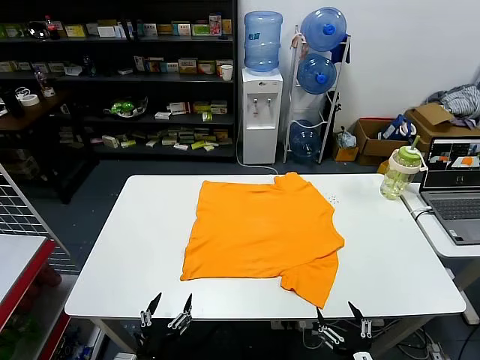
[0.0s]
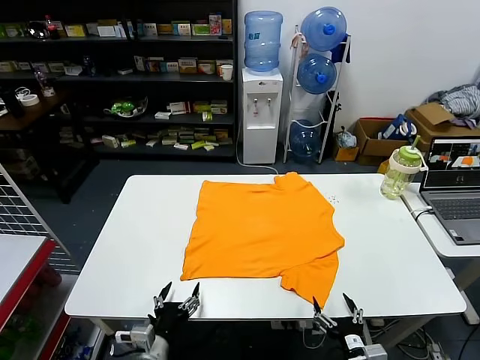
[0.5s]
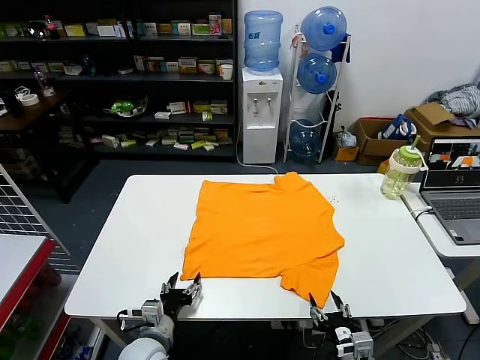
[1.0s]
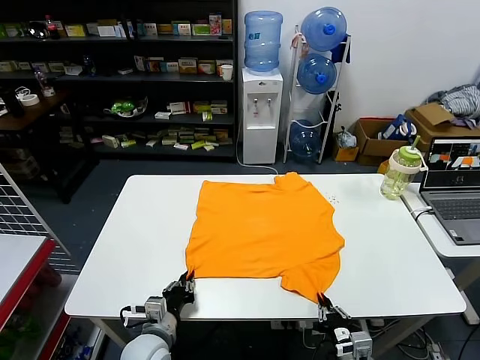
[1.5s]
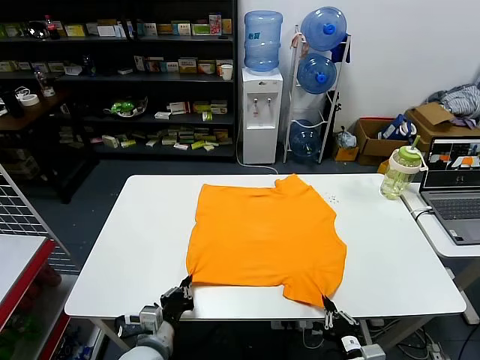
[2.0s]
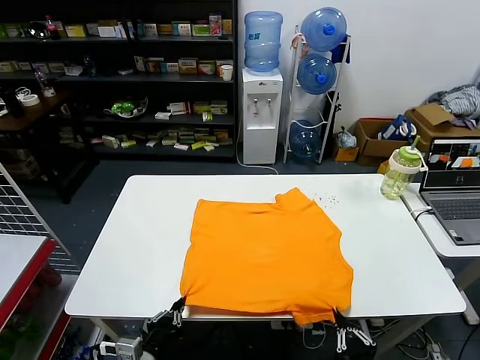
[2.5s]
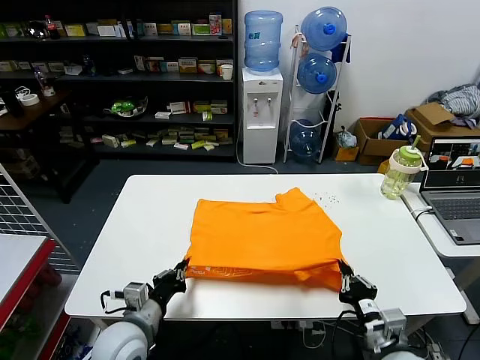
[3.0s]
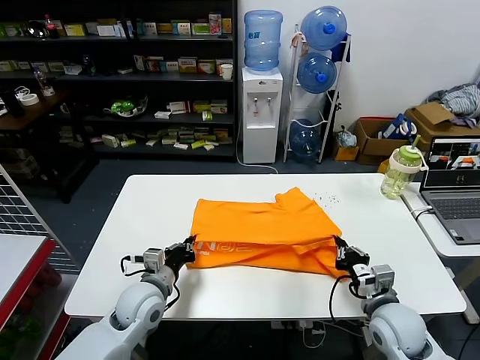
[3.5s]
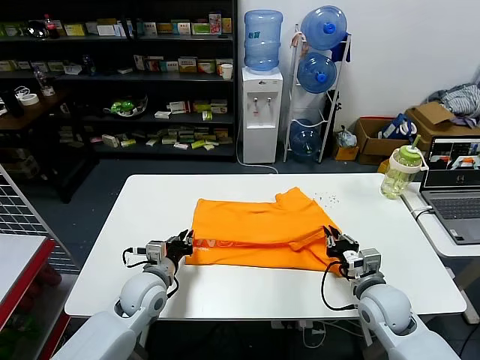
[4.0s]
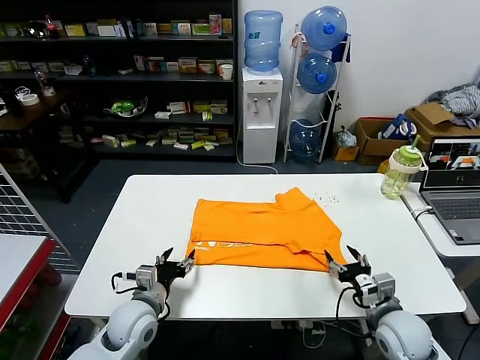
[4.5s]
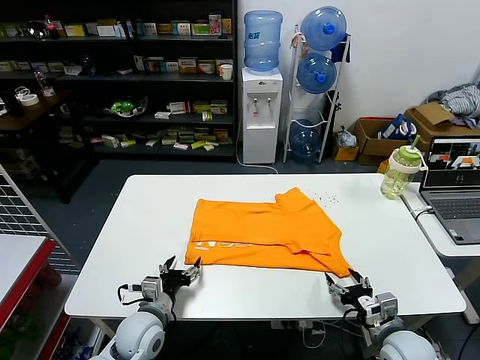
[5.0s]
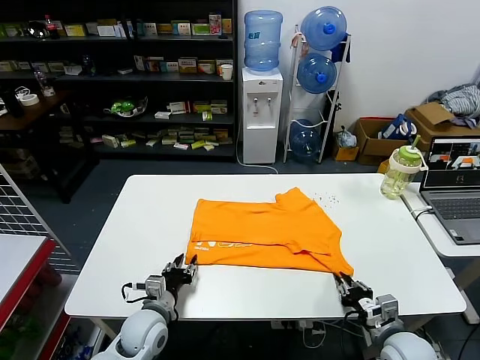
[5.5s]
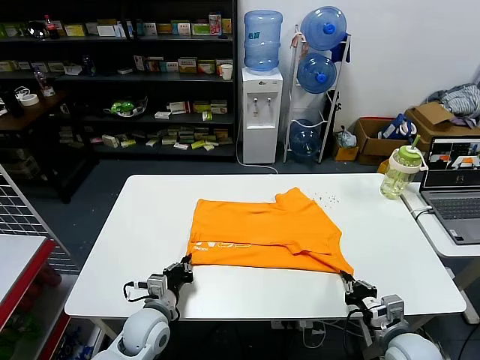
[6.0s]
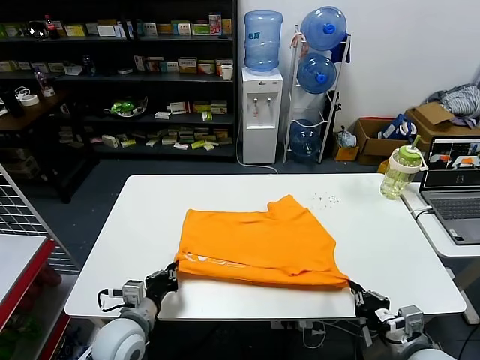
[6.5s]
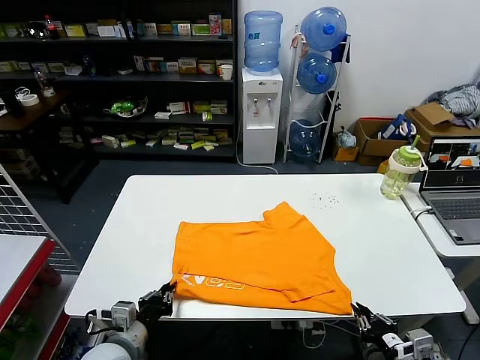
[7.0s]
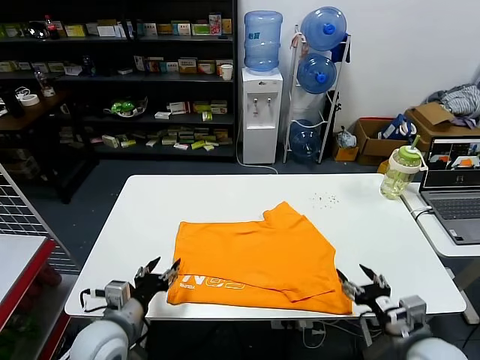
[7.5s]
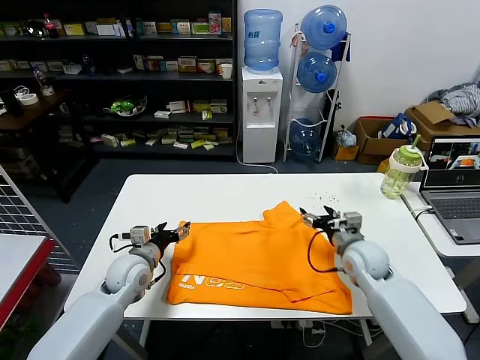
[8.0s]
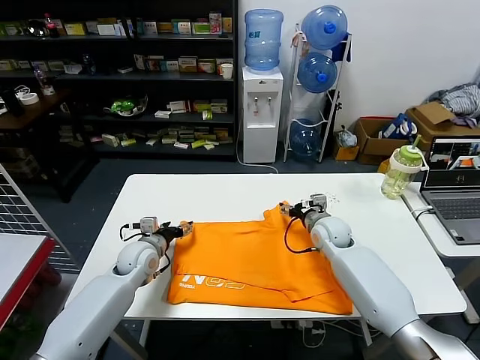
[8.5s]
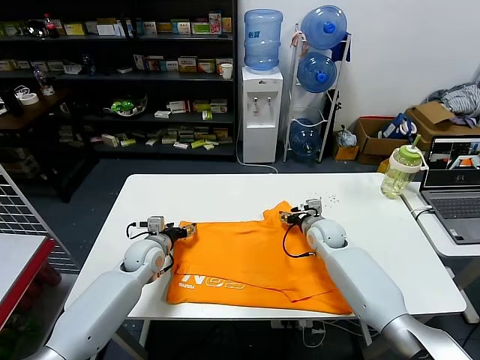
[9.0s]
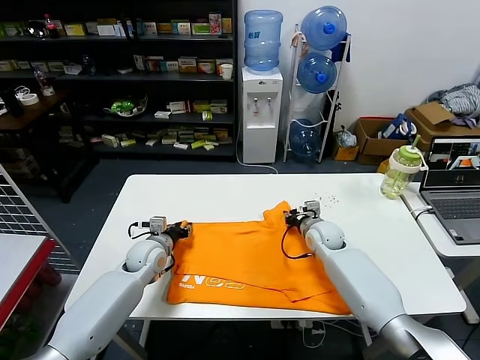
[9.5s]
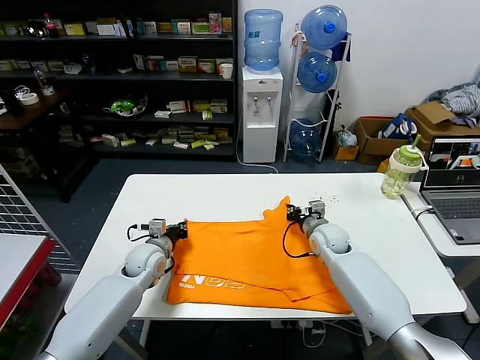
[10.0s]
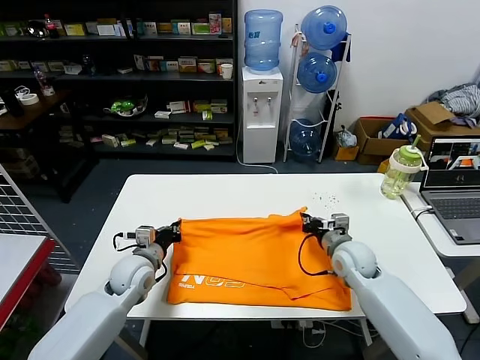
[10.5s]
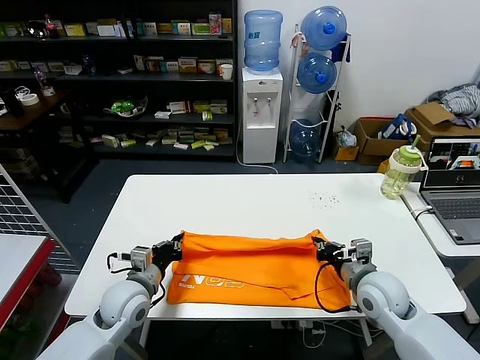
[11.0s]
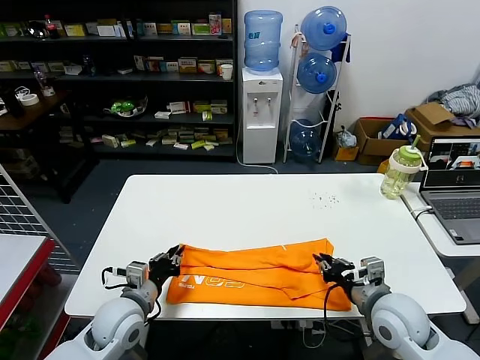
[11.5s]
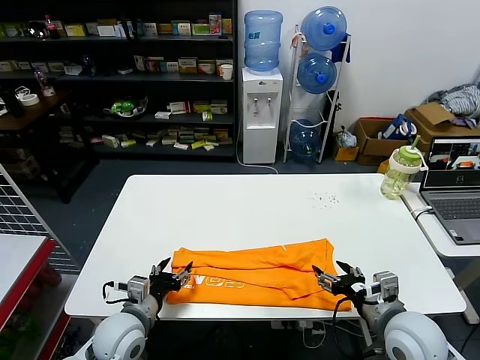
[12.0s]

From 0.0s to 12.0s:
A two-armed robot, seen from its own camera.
Task of the whole recording: fold and organize the clothes.
Step, from 0.0s to 1.5s: use both grippers simultaneously to clamp the lower edge of the clothing fabric.
Step, from 2.0s to 4.0s: use both grippers to drag the lower edge of the fabric forward and fold it over the upper edge.
Step, from 4.5s to 7.0s: Drag the clothes downward with both gripper.
Step, from 7.5s to 9.5s: use both grippers simultaneously to clamp the upper edge of the clothing fabric.
Step, from 10.0s to 11.5s: use both grippers to drag the upper edge of the fabric backward and fold it over the lower edge.
From 2.0s to 4.0s: The grippers both shift forward by roughly 15 cm.
From 4.0s to 6.0s: The left gripper goes roughly 10 cm downward and backward, and opens, then closes once more. The right gripper shifts some 10 cm backward, and opens and closes again.
From 6.0s to 8.0s: The left gripper moves forward, upward and to the left, about 15 cm, and opens its fingers; the right gripper travels forward by about 20 cm, and opens.
From 8.0s to 10.0s: The left gripper changes place by some 5 cm, and closes. The right gripper shifts approximately 5 cm forward, and closes up.
From 10.0s to 12.0s: The two grippers go roughly 20 cm backward. The right gripper opens up; the left gripper opens.

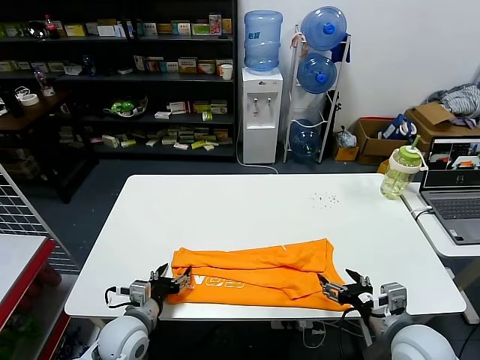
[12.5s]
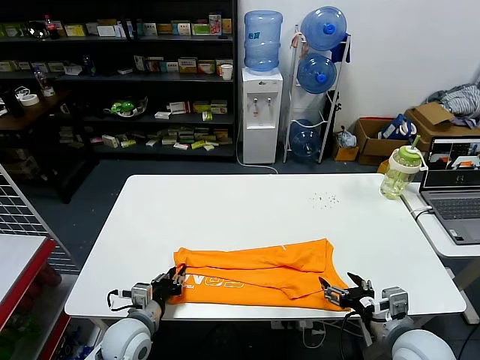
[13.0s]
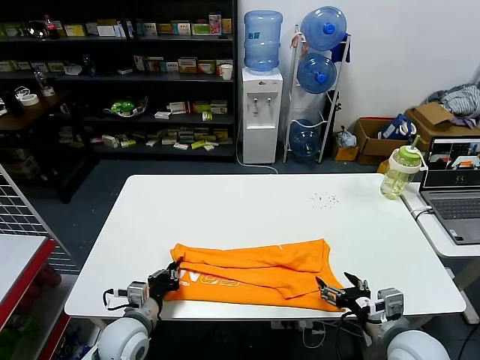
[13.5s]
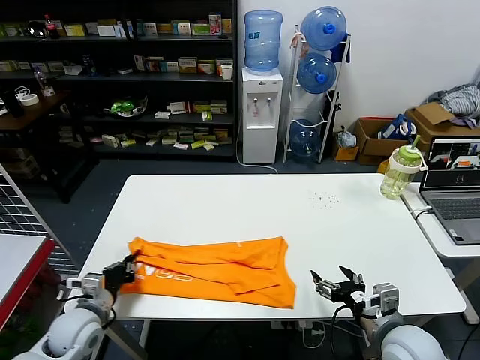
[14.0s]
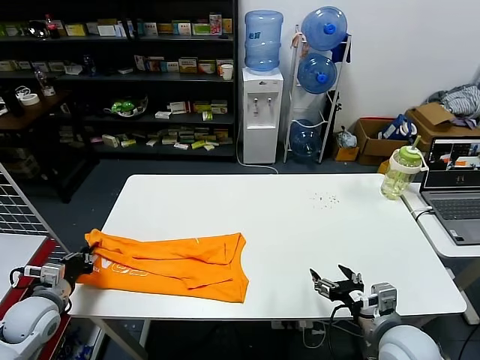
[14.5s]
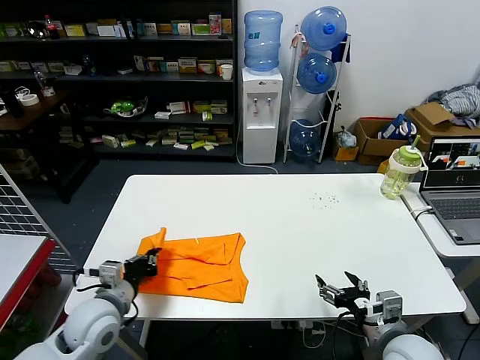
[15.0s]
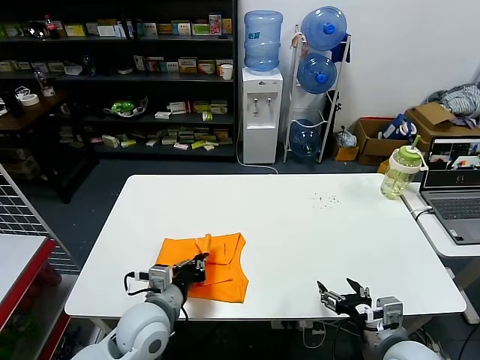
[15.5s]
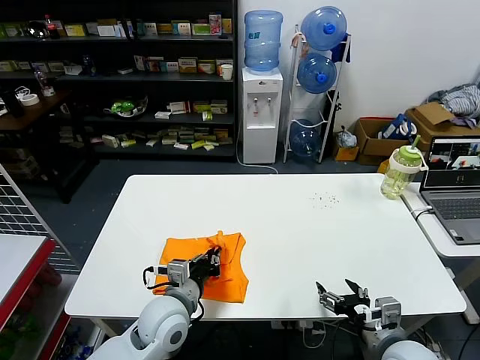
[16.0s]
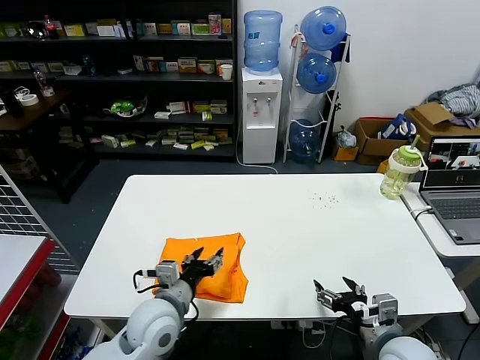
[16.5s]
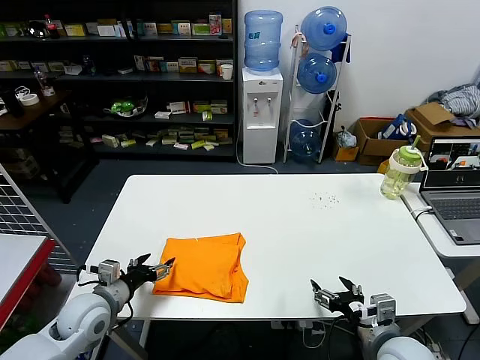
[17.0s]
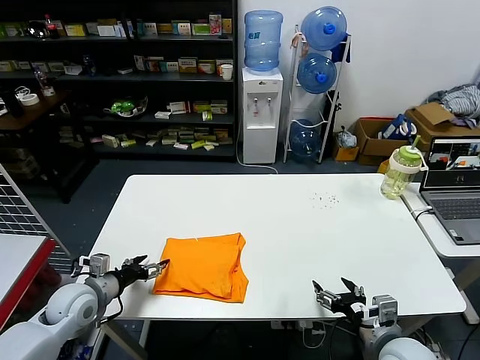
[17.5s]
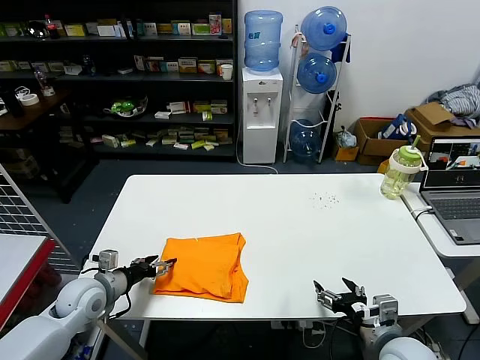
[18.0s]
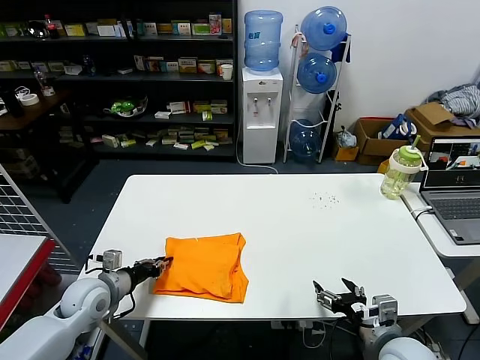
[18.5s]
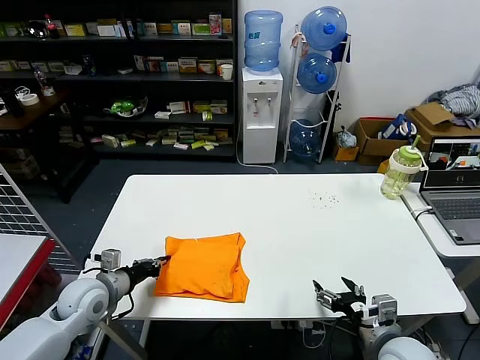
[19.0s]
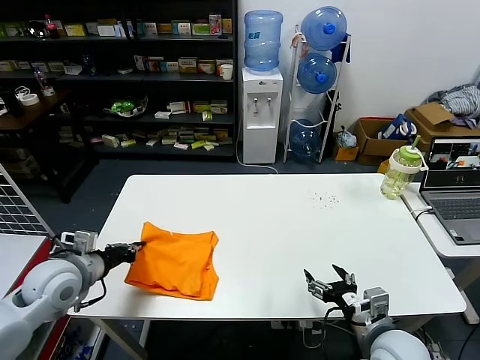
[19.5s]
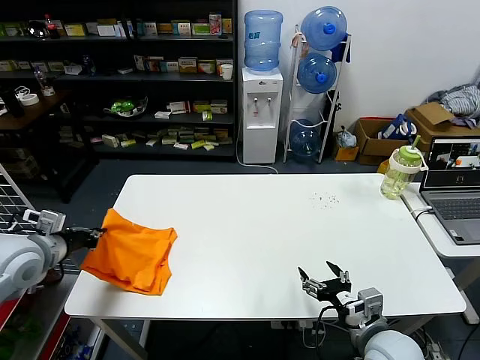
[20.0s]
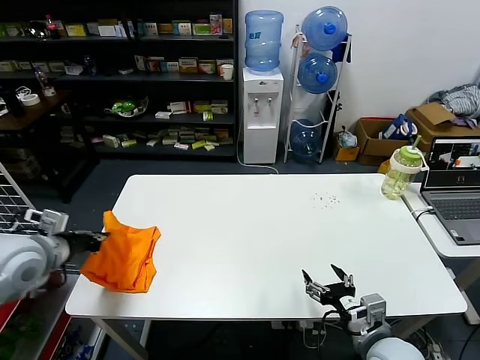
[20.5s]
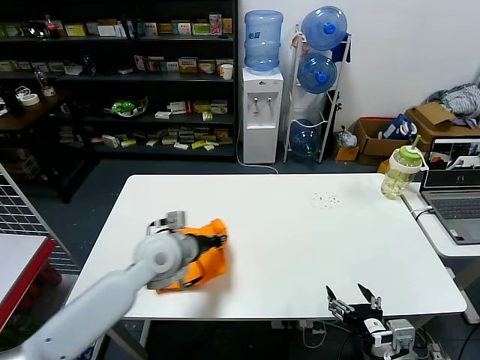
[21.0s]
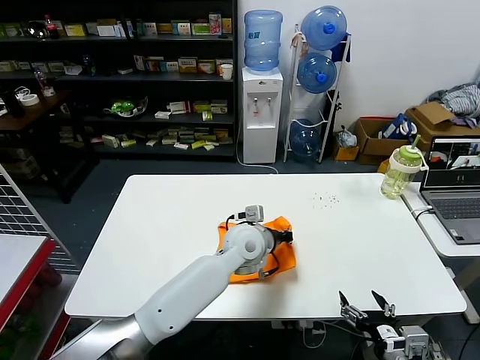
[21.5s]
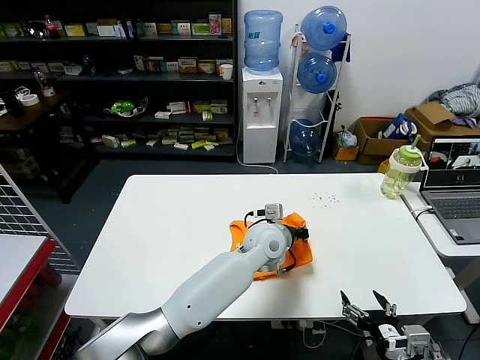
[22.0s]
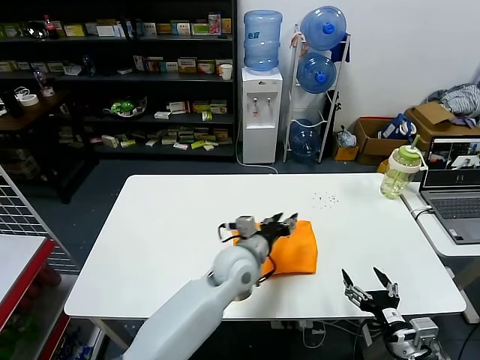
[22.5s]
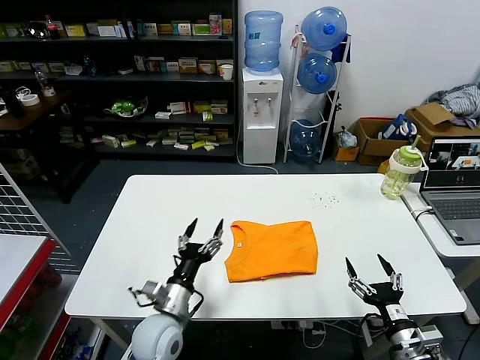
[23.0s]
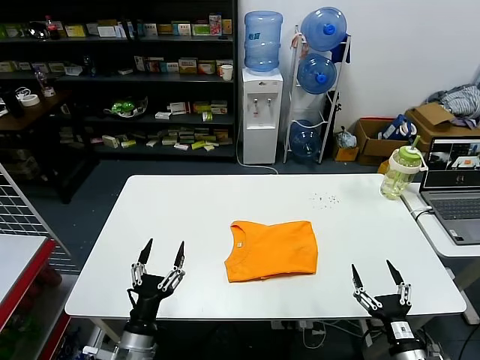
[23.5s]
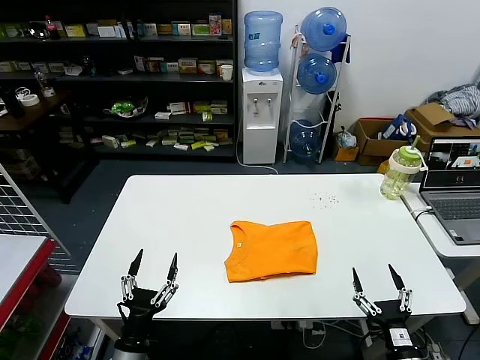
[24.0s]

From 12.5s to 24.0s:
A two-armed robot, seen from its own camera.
Task of the whole recording: fold and organize the clothes.
Step, from 13.5s to 16.0s: use the left gripper to drag the left edge of the fabric to the left and folds it over the right edge.
Step, from 16.5s to 22.0s: Flip the folded clothes over with left gripper.
From 12.5s to 14.5s: The left gripper moves to the left, some 20 cm, and closes its fingers.
From 14.5s to 16.5s: The left gripper moves to the right, some 30 cm, and opens up.
From 16.5s to 18.5s: The left gripper goes about 20 cm to the left, and closes.
From 18.5s to 20.0s: The left gripper shifts roughly 15 cm upward and to the left.
From 20.0s to 22.0s: The left gripper is displaced to the right by some 50 cm, while the right gripper moves backward, some 5 cm.
From 22.0s to 24.0s: The right gripper shifts some 10 cm downward. The left gripper goes about 40 cm to the left, backward and downward, and opens its fingers.
